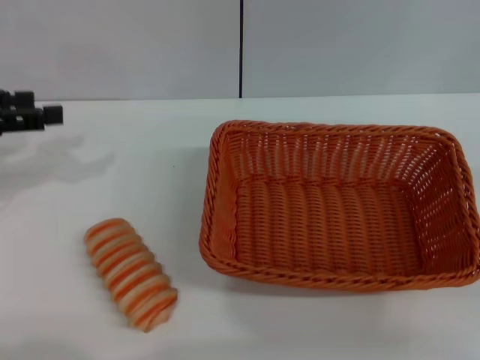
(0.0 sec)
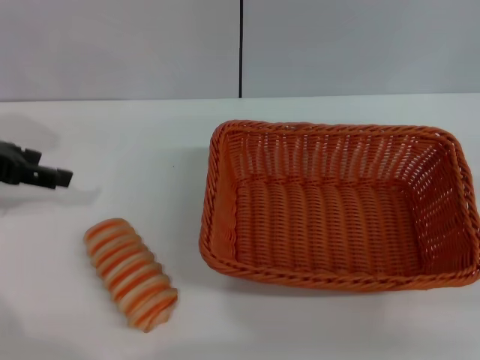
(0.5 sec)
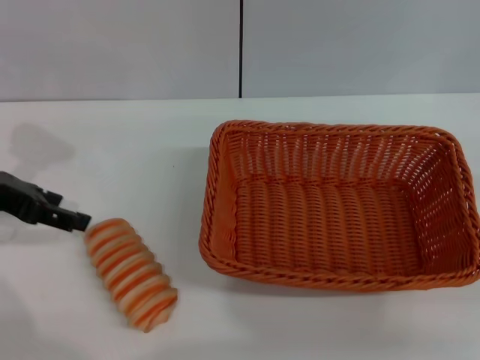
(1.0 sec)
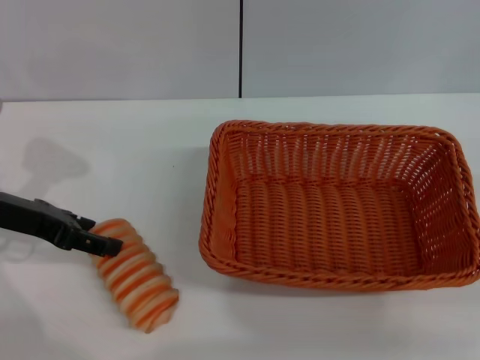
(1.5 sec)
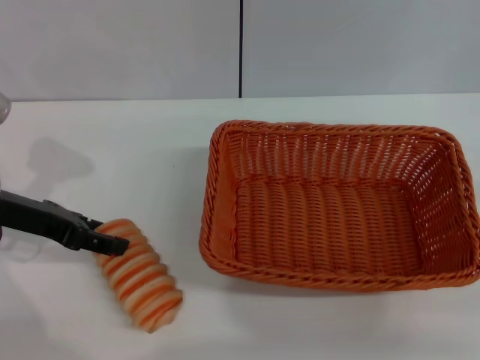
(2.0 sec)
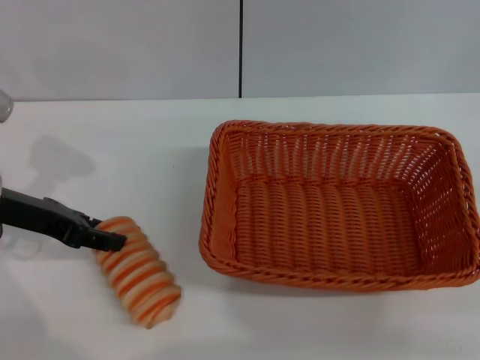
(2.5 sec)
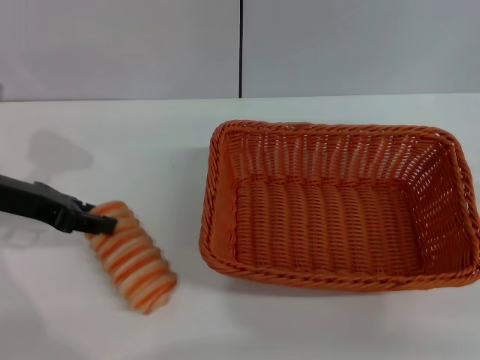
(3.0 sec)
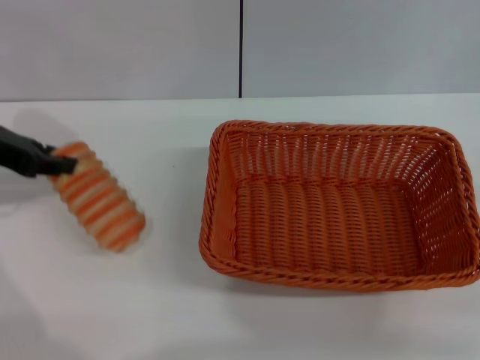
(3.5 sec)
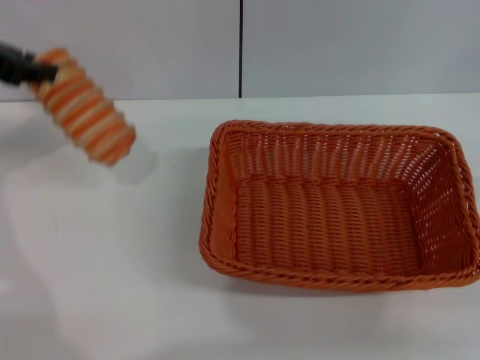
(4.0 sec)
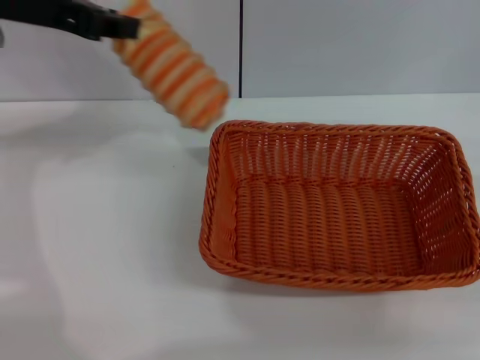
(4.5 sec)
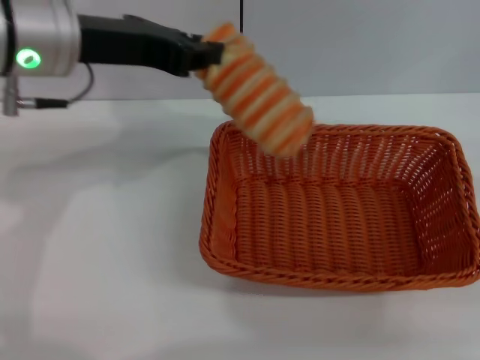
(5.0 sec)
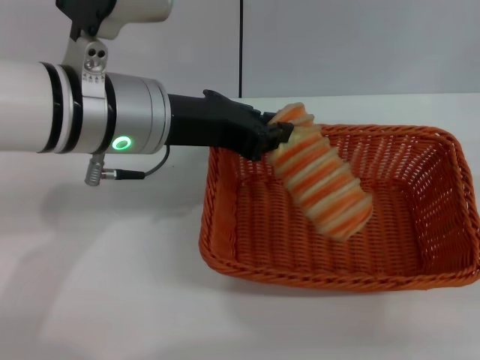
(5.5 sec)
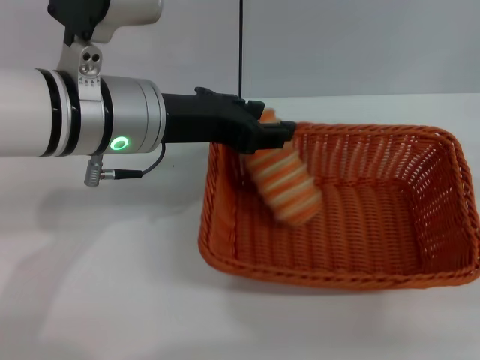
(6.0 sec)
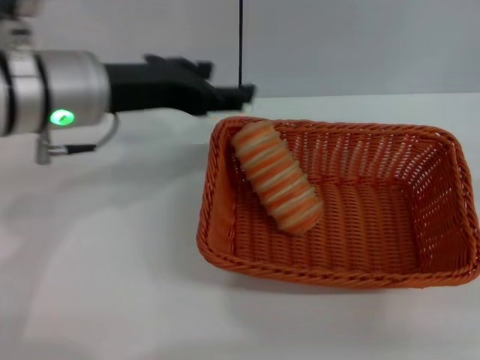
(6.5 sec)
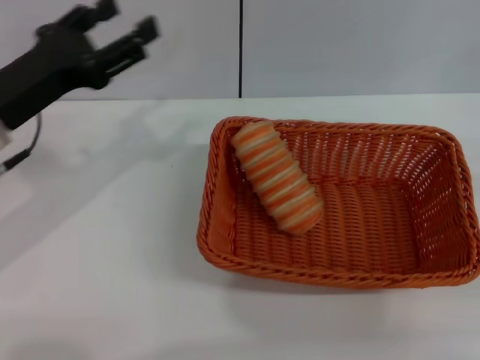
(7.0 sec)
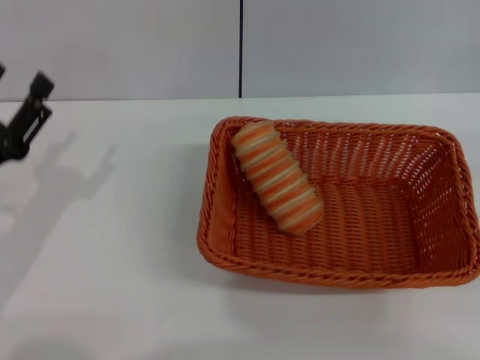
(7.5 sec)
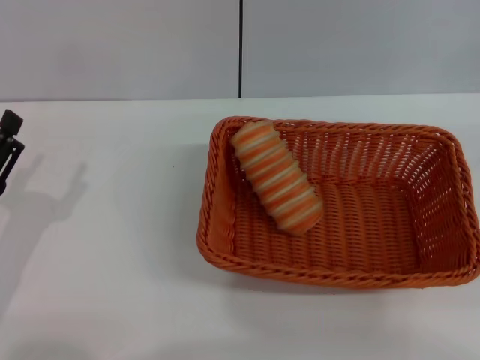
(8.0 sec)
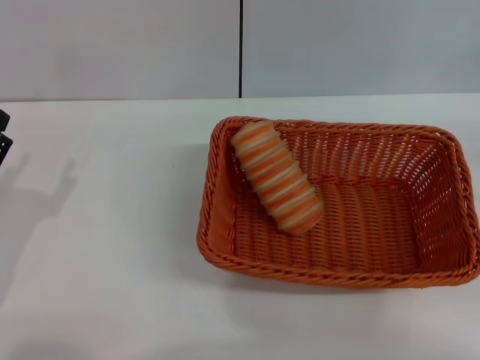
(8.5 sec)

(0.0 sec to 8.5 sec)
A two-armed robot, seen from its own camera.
Step, 0.0 sec - 3.5 sec: Pick up the long bread with the left gripper.
Step, 4.0 sec - 6.0 sec: Place the long bread into the light basket with the left gripper.
0.0 sec - 2.0 sec: The left gripper moves downward and to the right, approximately 10 cm.
2.0 sec - 4.0 sec: The left gripper moves upward, roughly 15 cm, and closes up.
4.0 sec - 6.5 sec: The left gripper goes roughly 15 cm to the right, and opens up.
6.5 sec - 8.5 sec: The left gripper moves downward, to the left and backward, roughly 25 cm, while the right gripper travels forward by roughly 5 cm.
